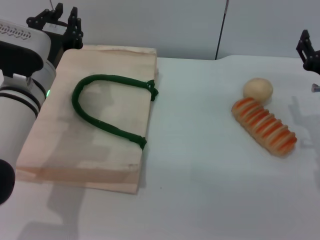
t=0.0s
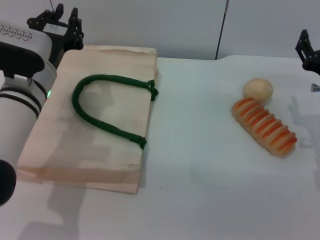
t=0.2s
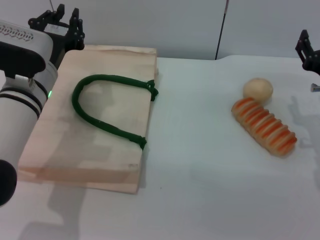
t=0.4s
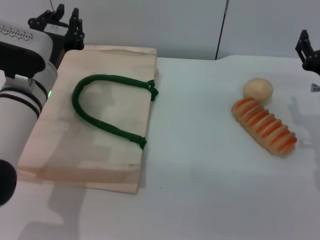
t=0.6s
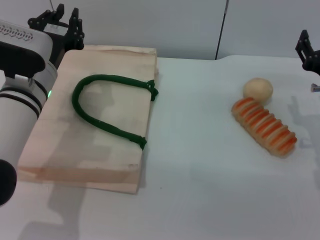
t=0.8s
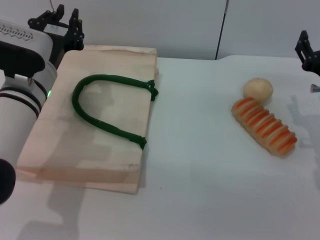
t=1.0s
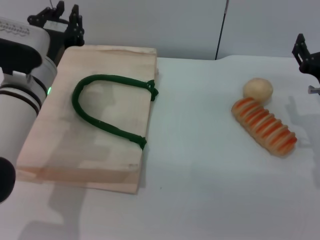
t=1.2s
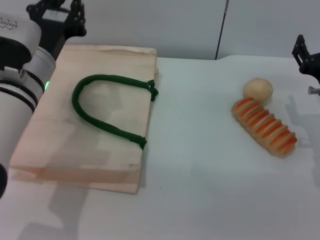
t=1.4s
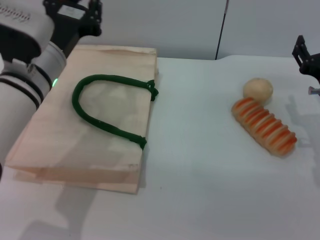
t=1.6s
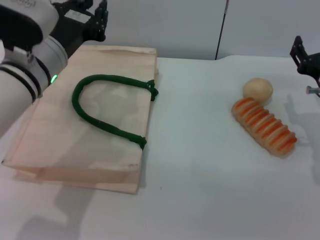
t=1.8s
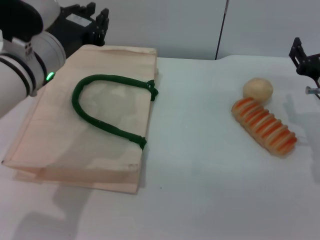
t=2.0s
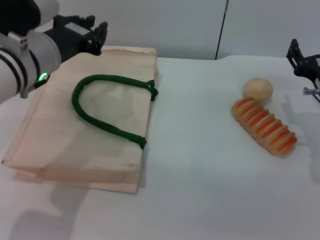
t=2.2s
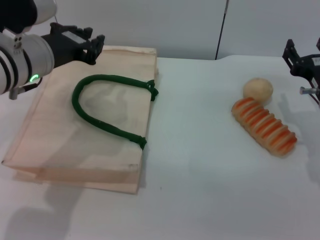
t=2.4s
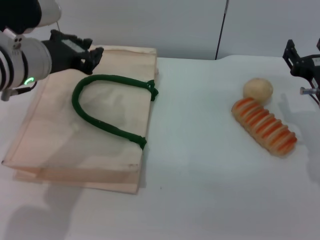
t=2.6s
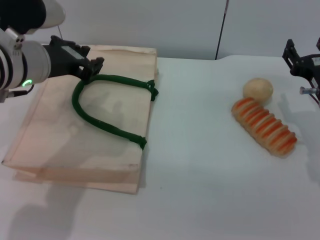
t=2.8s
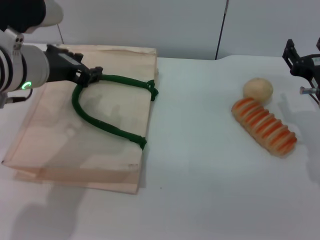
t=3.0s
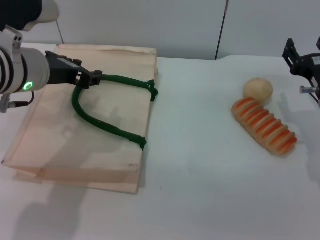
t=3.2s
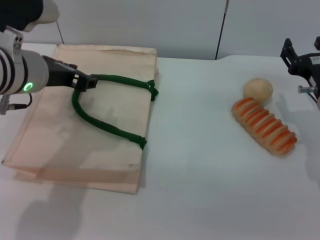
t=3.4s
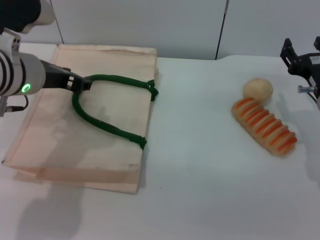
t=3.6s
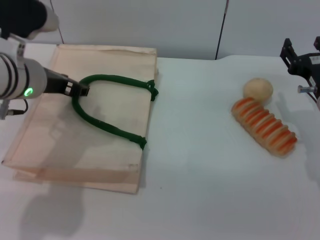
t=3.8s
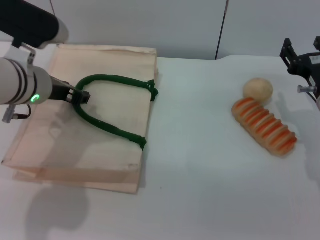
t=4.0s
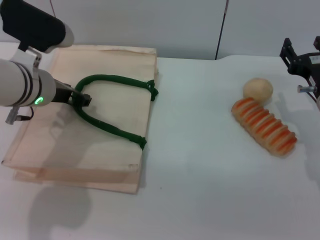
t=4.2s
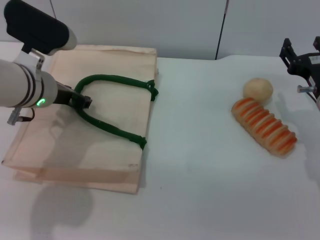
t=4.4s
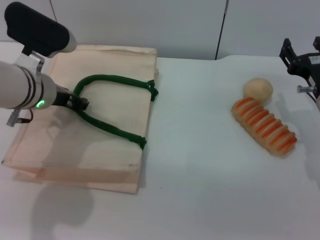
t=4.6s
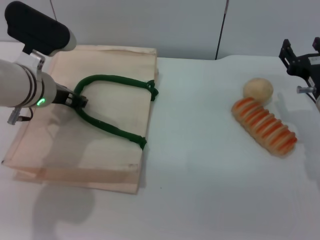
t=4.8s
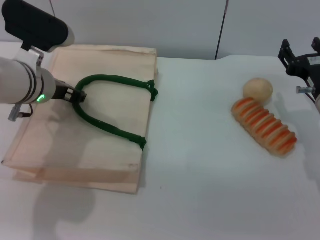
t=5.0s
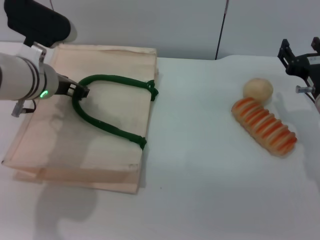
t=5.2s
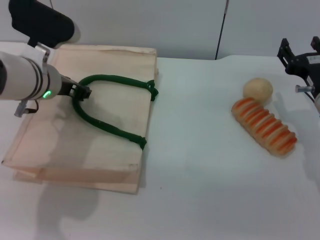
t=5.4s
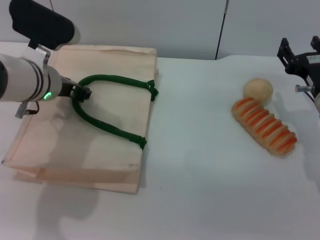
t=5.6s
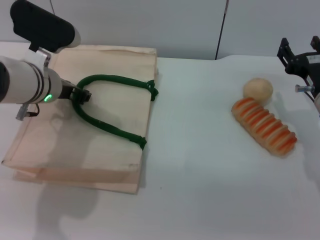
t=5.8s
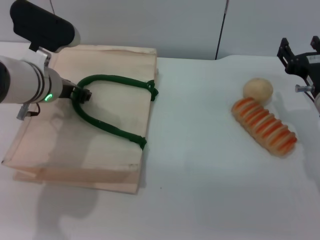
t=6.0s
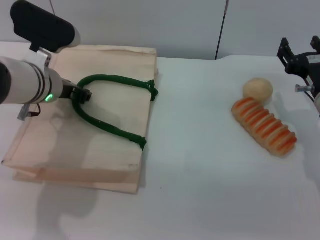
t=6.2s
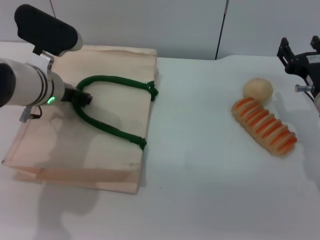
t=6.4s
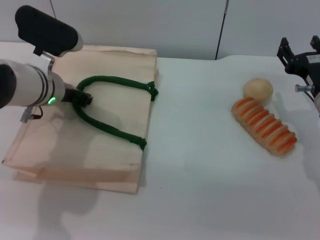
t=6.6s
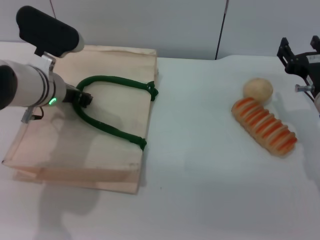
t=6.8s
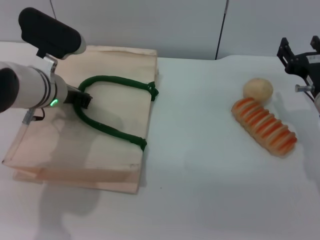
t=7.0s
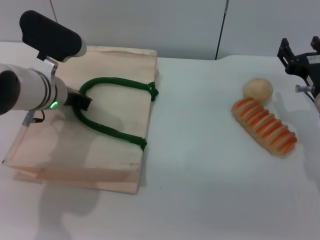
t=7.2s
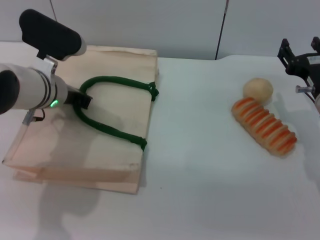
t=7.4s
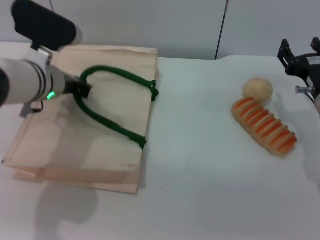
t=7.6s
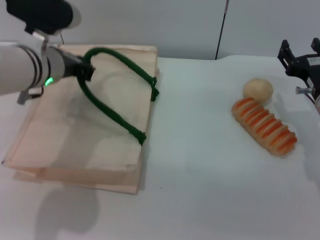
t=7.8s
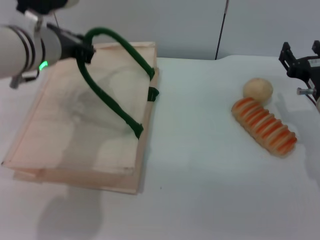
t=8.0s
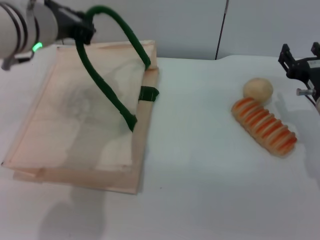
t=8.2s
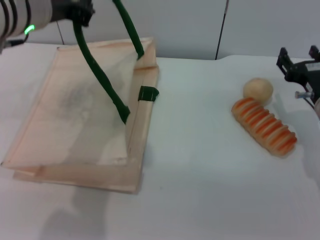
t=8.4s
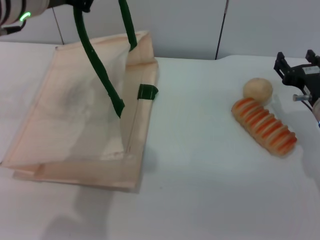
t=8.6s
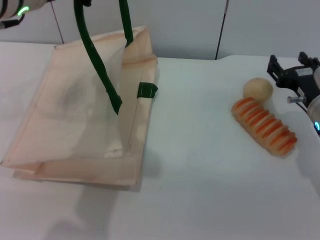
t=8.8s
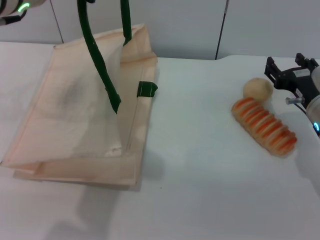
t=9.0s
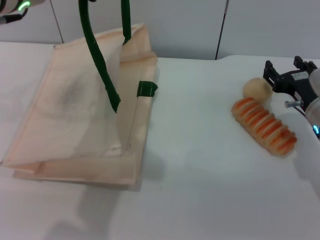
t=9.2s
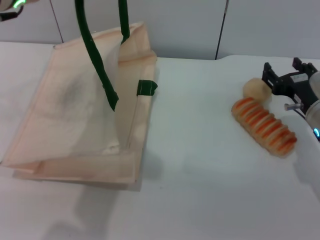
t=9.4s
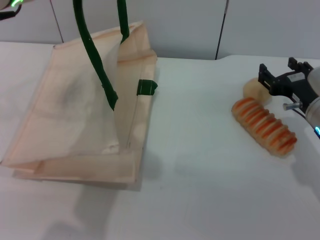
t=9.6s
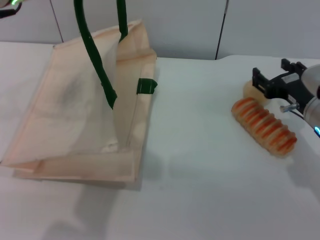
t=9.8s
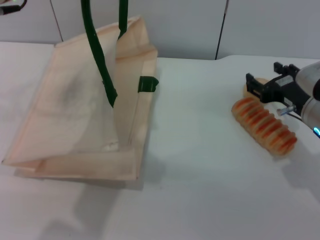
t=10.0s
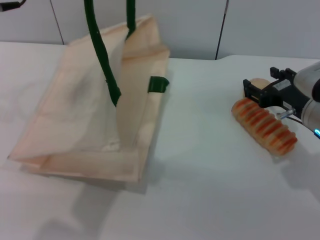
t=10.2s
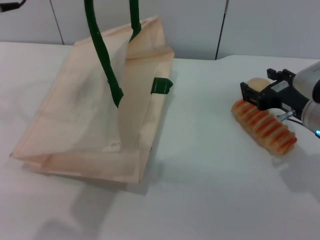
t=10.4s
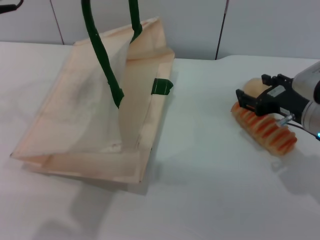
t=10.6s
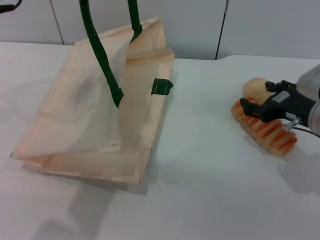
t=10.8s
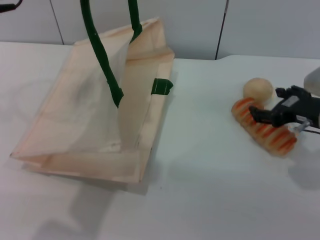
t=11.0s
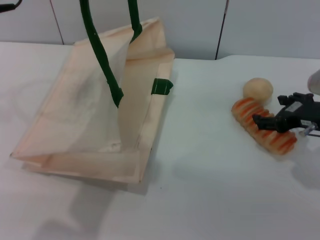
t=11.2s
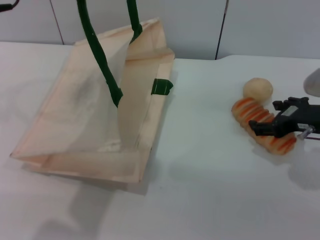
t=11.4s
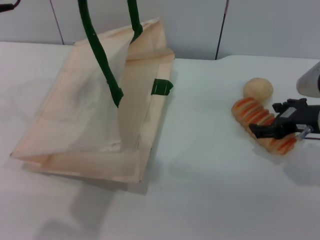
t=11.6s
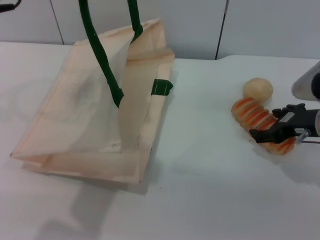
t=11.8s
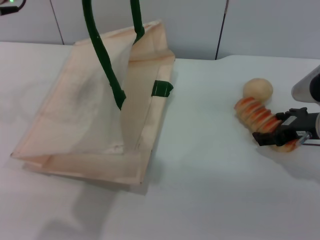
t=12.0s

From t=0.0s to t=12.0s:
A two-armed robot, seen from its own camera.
Task of the whole recording: pick up the bread and egg yolk pastry from the table and place it in the white handbag.
Step, from t=0.0s to t=8.8s: Lift the woven bag with the left gripper to open it.
From t=0.0s to t=1.6s: The grippers move only a little.
From t=3.0s to t=4.4s: The left gripper ends up about 5 cm from where it was.
From t=4.4s to t=6.0s: The grippers make only small movements.
From t=6.0s to t=7.6s: The left gripper closes its fingers.
From t=7.6s to t=9.0s: The left gripper travels upward by about 15 cm.

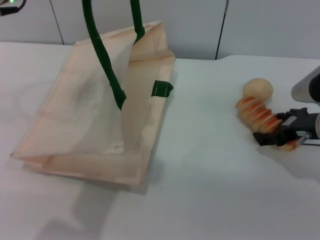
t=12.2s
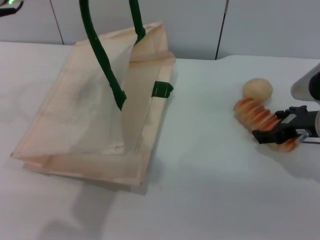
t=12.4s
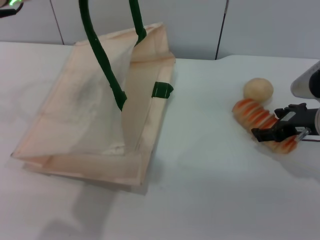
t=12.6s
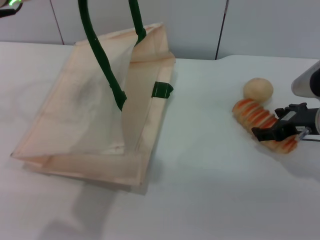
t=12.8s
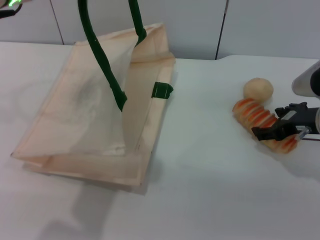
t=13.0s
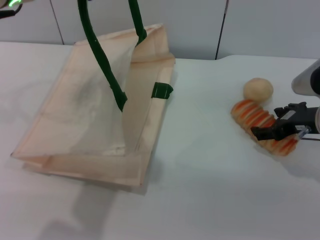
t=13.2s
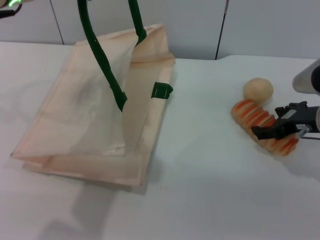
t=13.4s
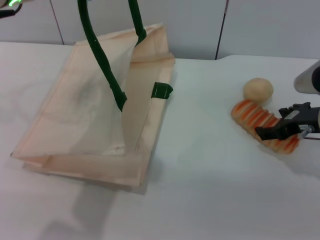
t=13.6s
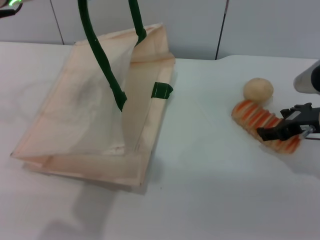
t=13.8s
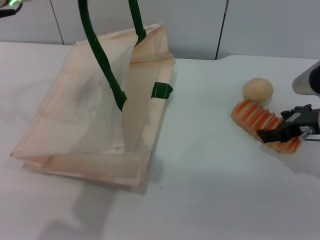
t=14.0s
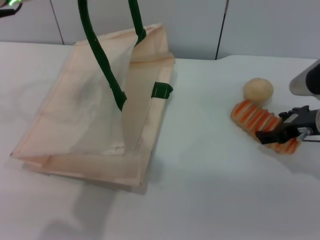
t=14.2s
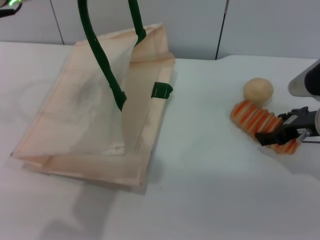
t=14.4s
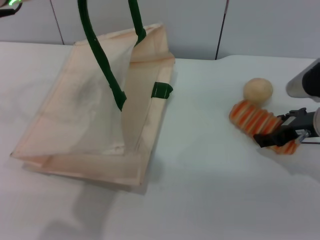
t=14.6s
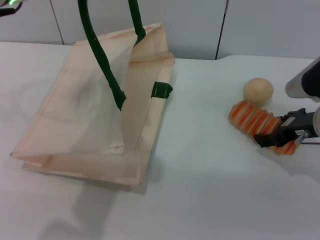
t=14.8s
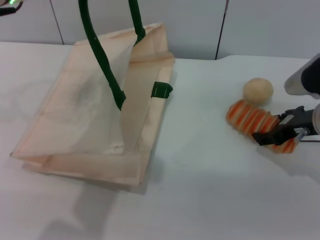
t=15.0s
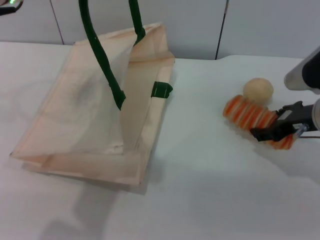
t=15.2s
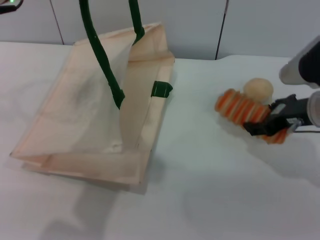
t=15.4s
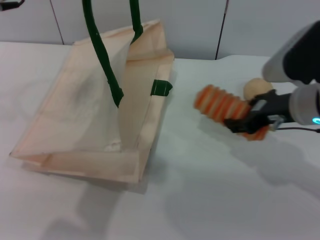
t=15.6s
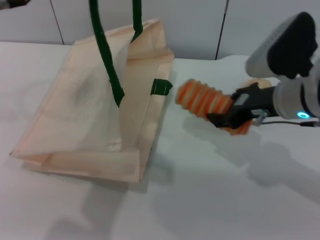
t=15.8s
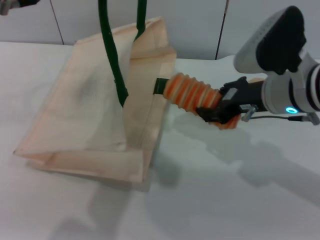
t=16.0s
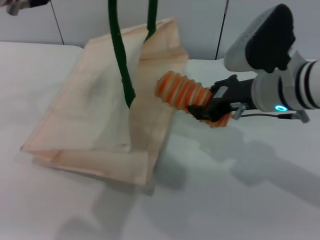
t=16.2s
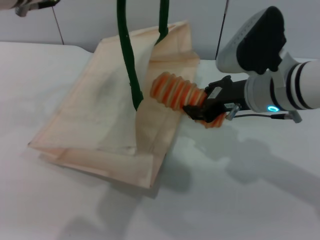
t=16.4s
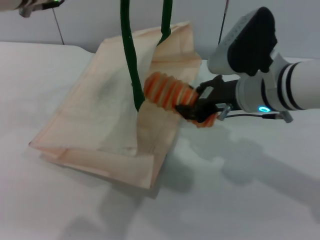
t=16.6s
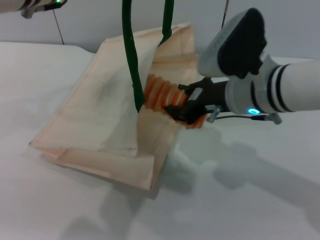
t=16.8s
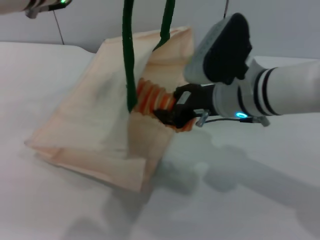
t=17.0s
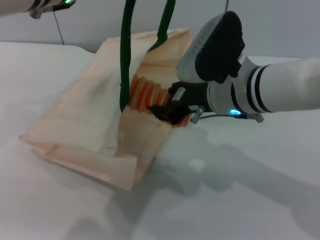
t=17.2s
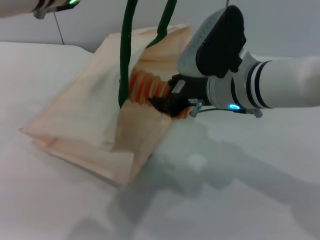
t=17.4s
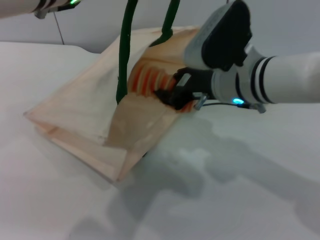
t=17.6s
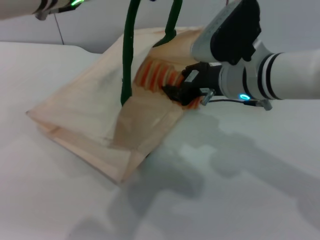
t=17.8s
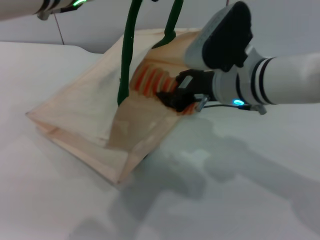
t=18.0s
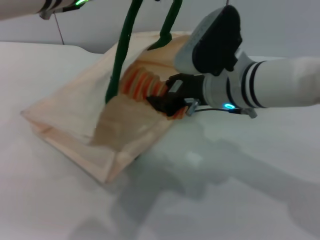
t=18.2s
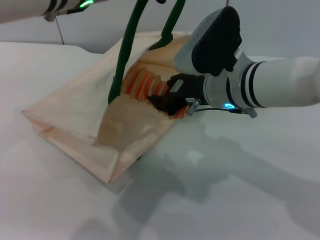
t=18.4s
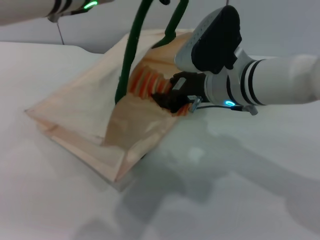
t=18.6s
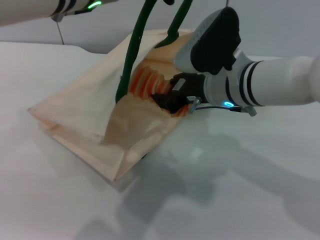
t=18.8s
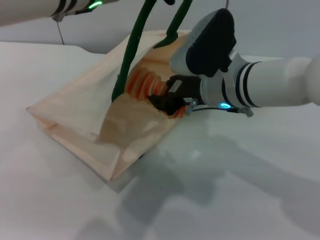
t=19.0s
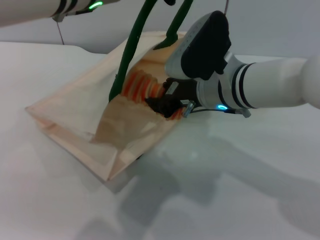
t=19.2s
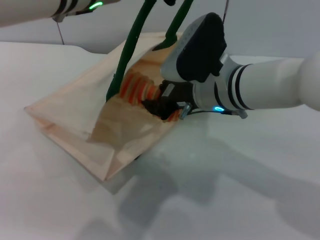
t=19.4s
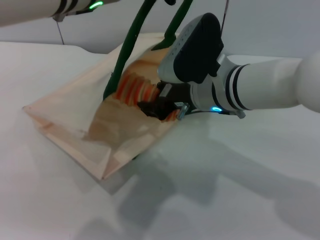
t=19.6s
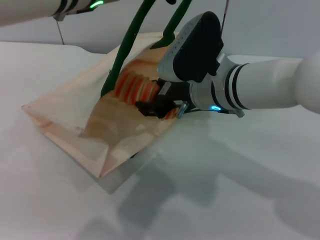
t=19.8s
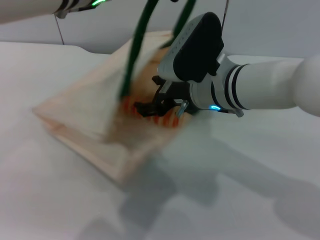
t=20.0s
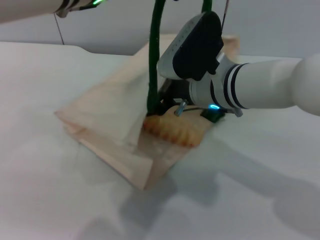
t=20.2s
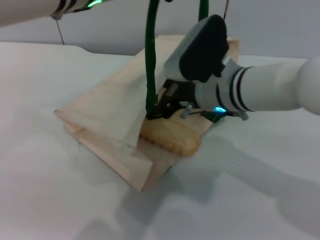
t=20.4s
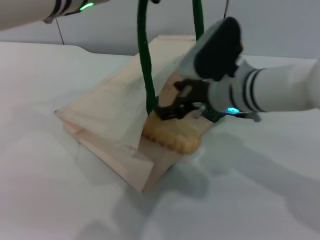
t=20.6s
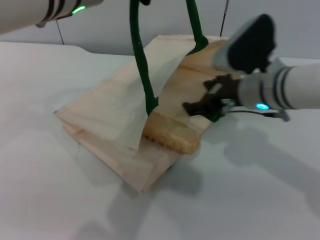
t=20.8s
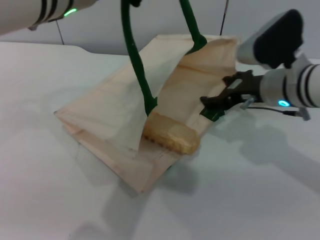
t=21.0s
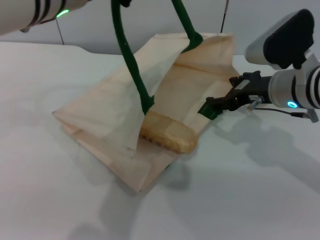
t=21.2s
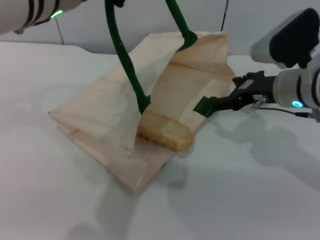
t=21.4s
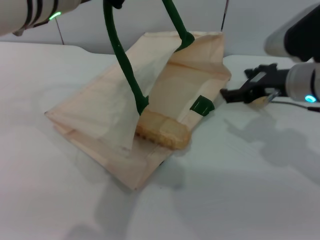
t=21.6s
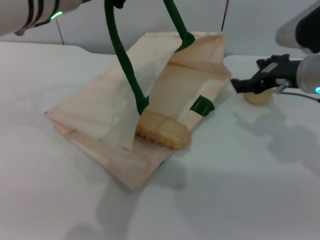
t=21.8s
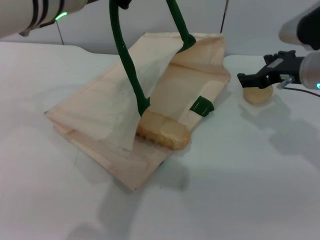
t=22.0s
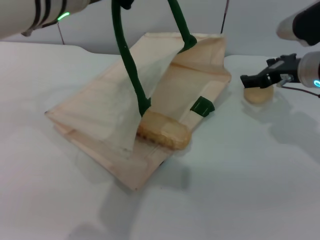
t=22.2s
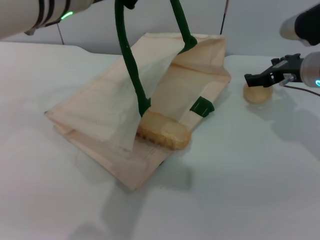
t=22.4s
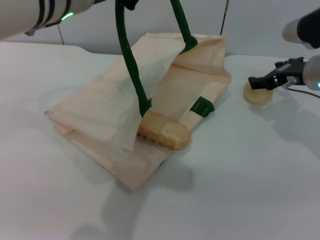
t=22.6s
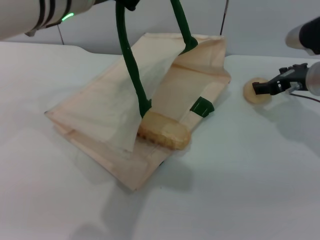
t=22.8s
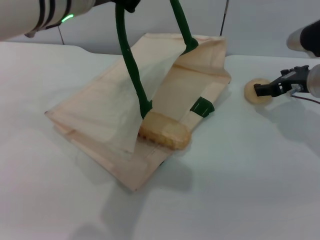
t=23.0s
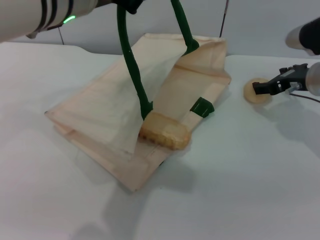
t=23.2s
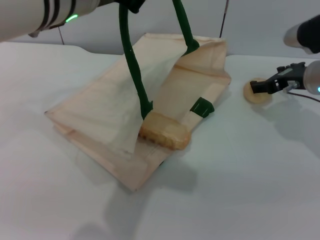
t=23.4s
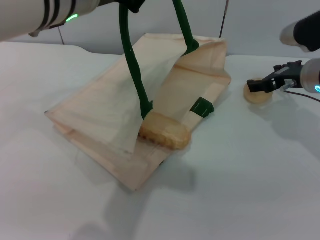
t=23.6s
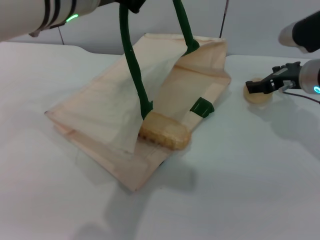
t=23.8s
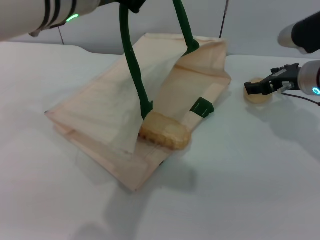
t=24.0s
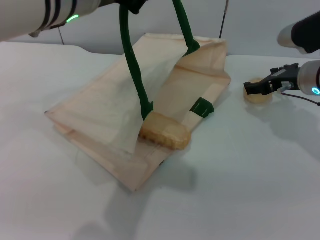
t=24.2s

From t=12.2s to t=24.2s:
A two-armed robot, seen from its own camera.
Task of the whole recording: pick up the bread and egg yolk pastry from the table and place it in the white handbag.
Step, from t=12.2s to t=15.8s: Pick up the bread with the right gripper.
Step, from t=16.0s to t=21.2s: Place the bread into the woven bag with the right gripper.
From t=12.2s to t=13.8s: Both grippers stay about where they are.
From t=13.8s to t=15.2s: There are only small adjustments of the grippers.
From t=15.2s to t=16.6s: The right gripper heads to the left, covering roughly 10 cm, and closes its fingers.
From t=18.2s to t=19.8s: The grippers stay close to where they were, moving slightly.
From t=19.8s to t=21.2s: The right gripper heads to the right, covering approximately 10 cm, and opens its fingers.
From t=21.2s to t=22.6s: The right gripper heads to the right, covering some 5 cm.
From t=22.6s to t=24.2s: The grippers stay close to where they were, moving slightly.
